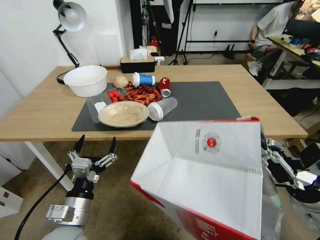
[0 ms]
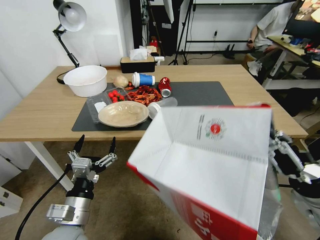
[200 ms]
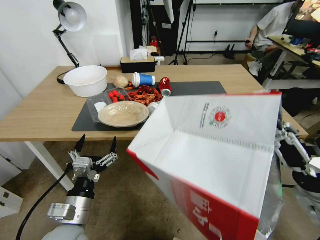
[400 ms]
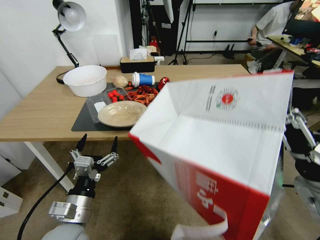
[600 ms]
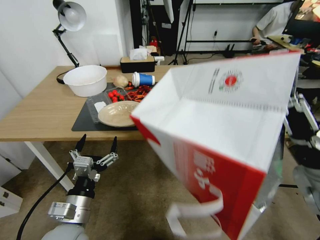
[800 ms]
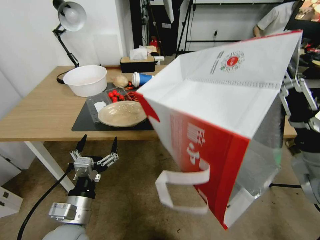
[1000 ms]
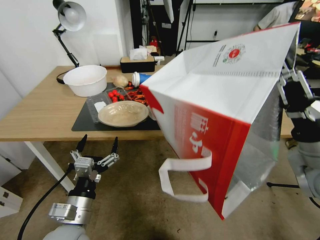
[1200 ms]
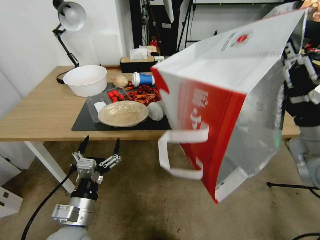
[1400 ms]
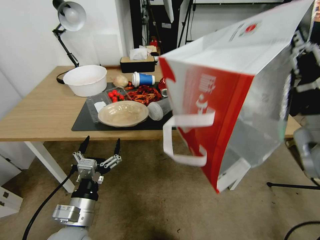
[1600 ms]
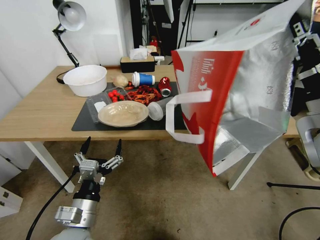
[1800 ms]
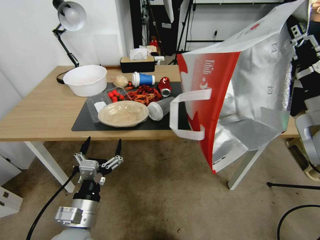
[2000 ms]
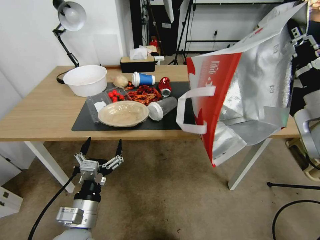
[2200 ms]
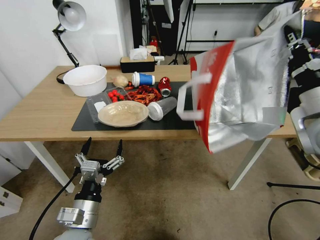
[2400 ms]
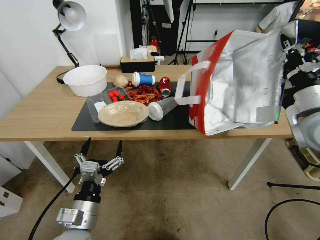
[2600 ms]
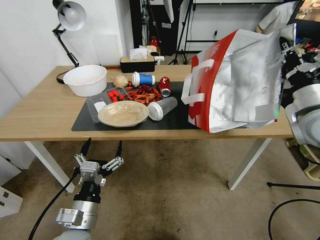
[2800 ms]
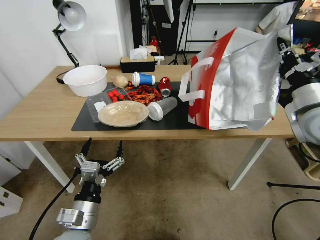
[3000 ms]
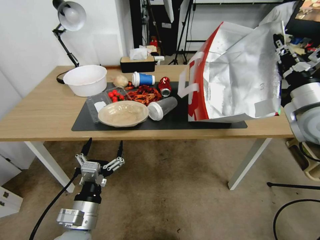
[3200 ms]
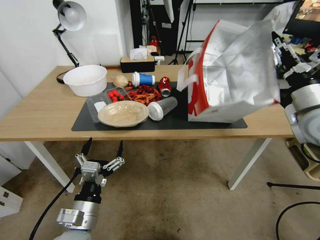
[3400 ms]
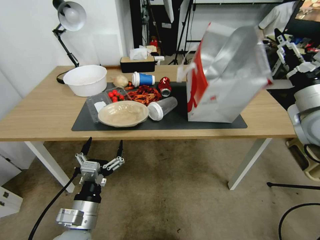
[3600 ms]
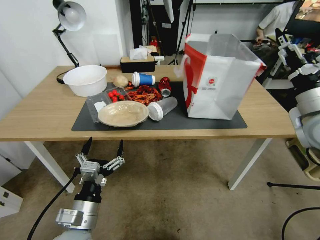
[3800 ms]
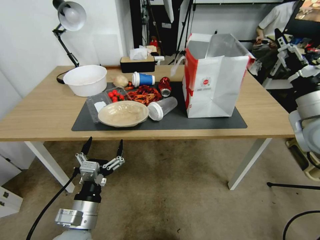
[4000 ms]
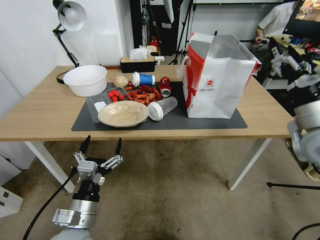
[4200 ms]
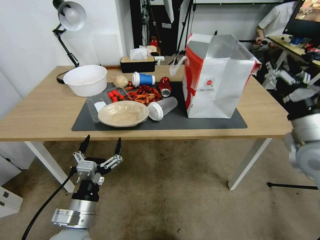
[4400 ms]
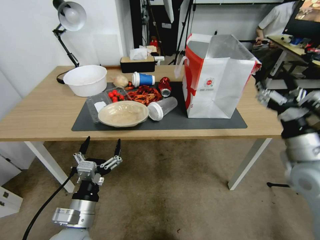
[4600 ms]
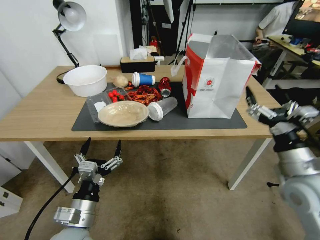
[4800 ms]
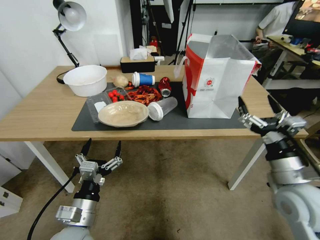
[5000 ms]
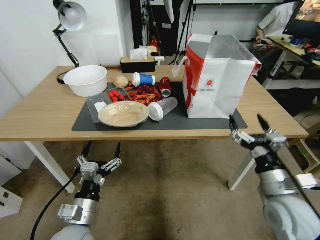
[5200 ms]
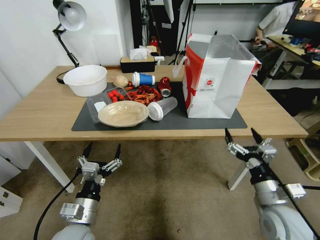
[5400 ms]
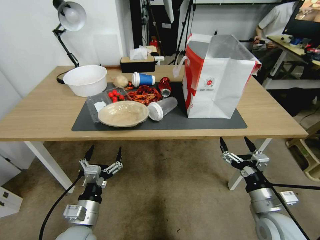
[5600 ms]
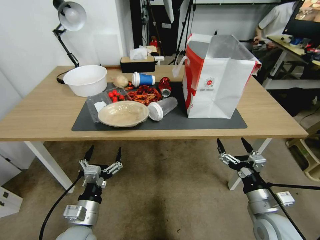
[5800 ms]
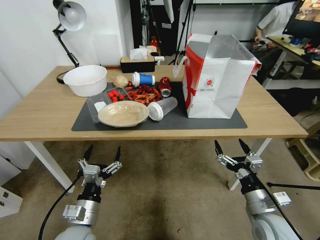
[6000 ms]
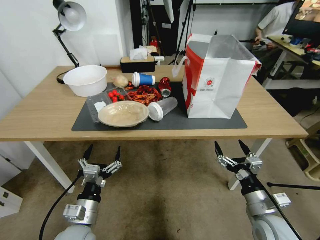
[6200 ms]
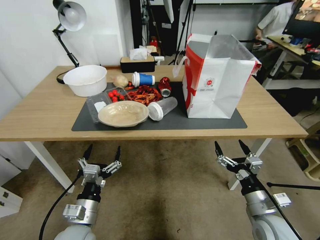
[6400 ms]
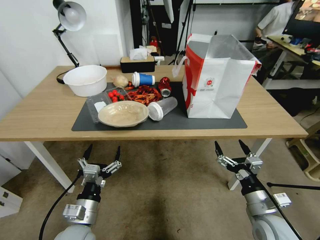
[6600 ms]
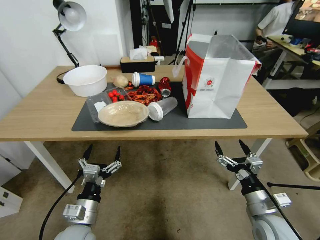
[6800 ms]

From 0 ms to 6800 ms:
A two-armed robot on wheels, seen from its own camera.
Task of the whole recording: Pick up the food delivery bag from the floor and place it on the table.
From 0 ms to 1400 ms: The right gripper is displaced upward and to the left by roughly 15 cm.
From 1400 ms to 2800 ms: The right gripper goes approximately 10 cm forward.
From 2800 ms to 4000 ms: The right gripper opens up.
From 4000 ms to 5400 ms: The right gripper moves downward and backward, roughly 25 cm.
From 5400 ms to 6800 ms: There are only small adjustments of the grippers.

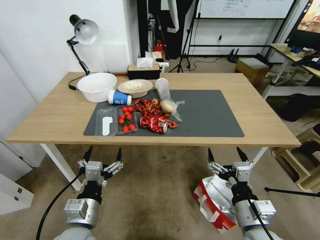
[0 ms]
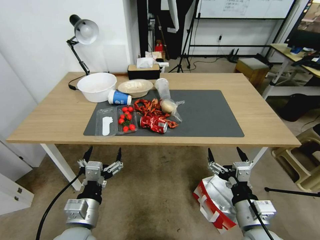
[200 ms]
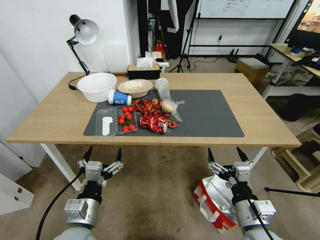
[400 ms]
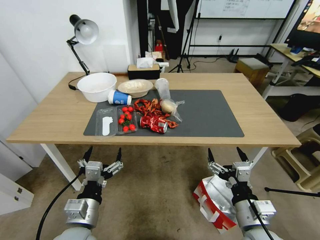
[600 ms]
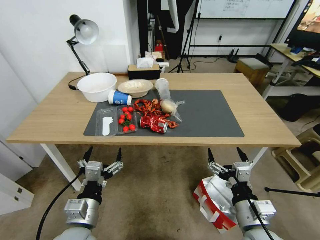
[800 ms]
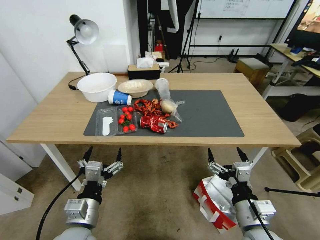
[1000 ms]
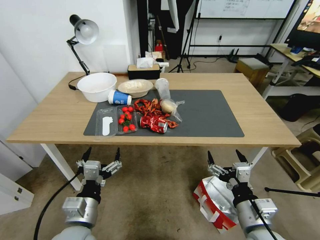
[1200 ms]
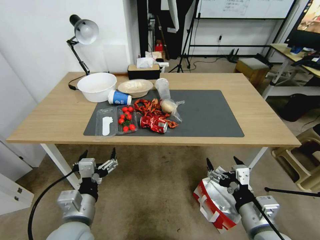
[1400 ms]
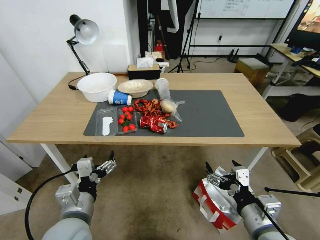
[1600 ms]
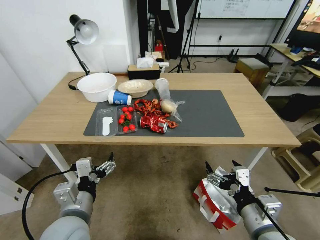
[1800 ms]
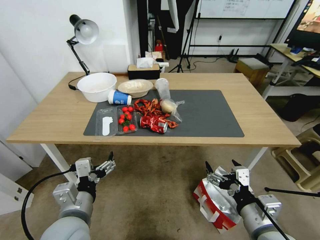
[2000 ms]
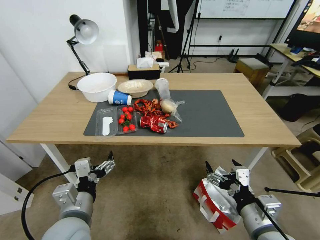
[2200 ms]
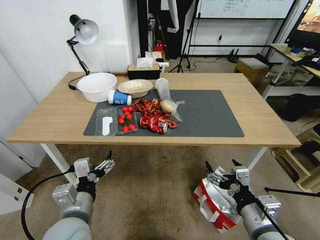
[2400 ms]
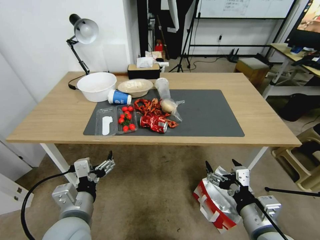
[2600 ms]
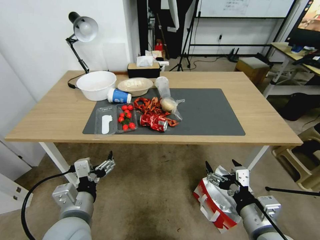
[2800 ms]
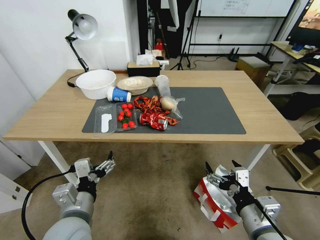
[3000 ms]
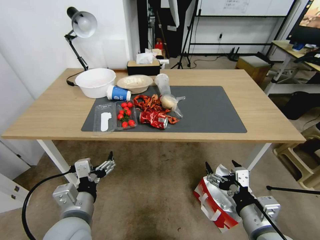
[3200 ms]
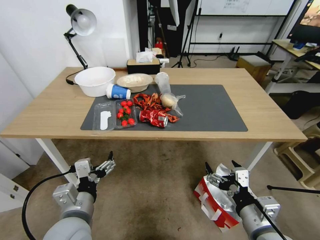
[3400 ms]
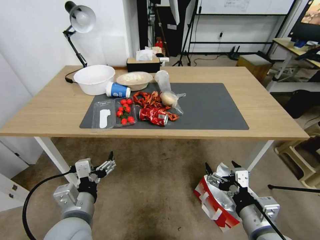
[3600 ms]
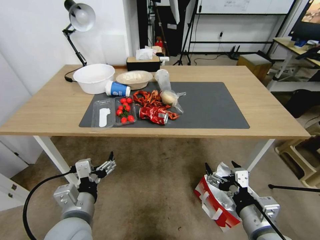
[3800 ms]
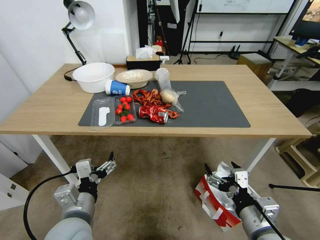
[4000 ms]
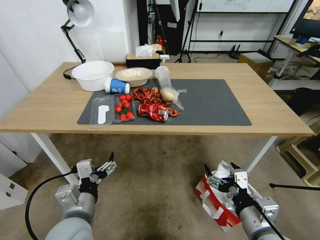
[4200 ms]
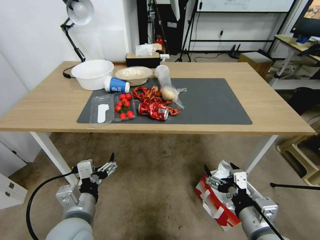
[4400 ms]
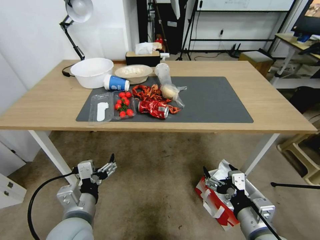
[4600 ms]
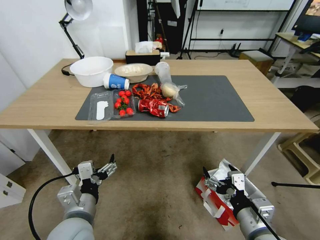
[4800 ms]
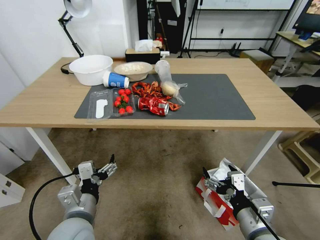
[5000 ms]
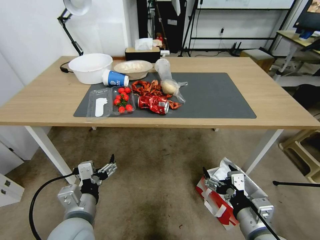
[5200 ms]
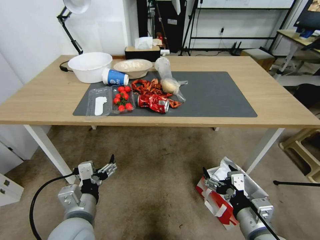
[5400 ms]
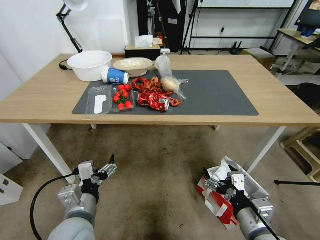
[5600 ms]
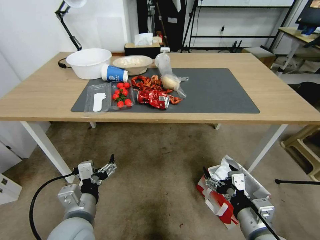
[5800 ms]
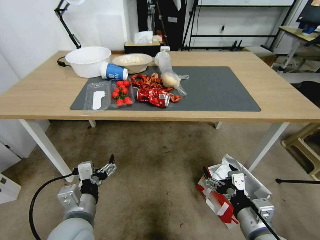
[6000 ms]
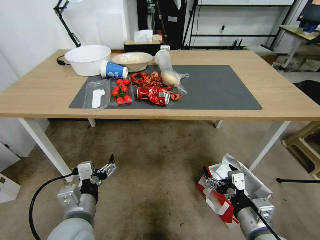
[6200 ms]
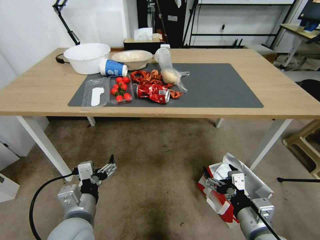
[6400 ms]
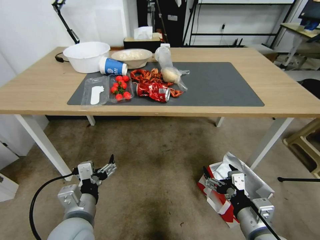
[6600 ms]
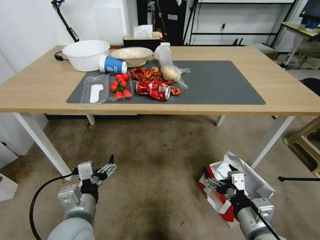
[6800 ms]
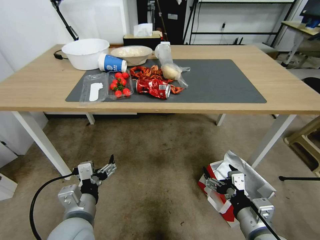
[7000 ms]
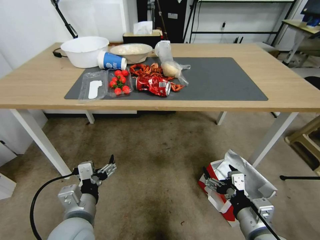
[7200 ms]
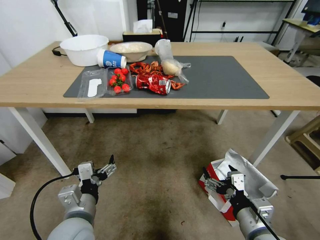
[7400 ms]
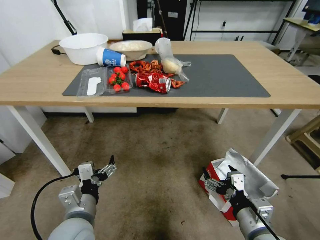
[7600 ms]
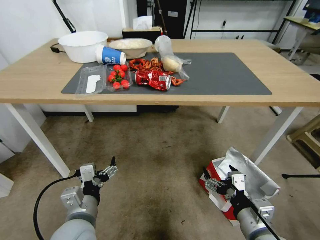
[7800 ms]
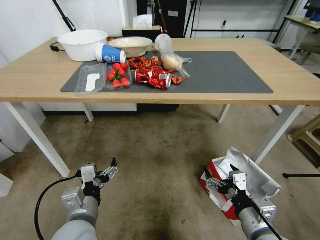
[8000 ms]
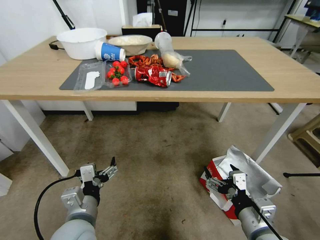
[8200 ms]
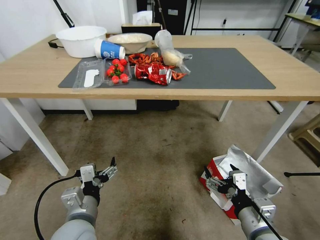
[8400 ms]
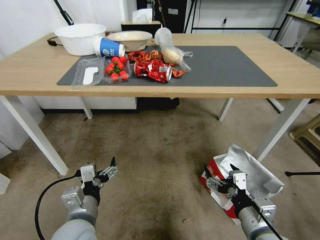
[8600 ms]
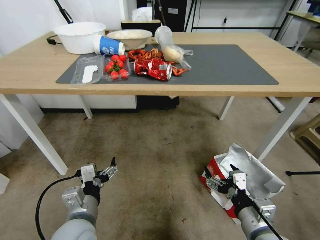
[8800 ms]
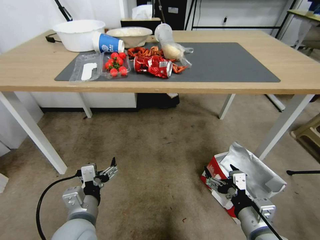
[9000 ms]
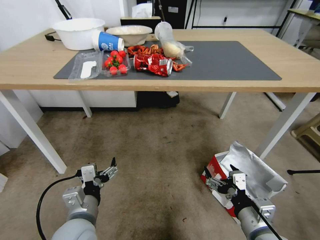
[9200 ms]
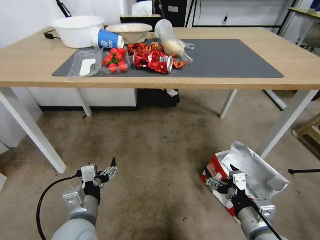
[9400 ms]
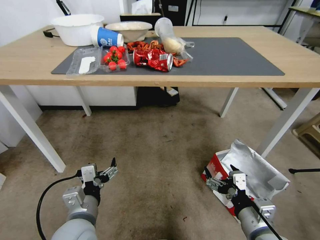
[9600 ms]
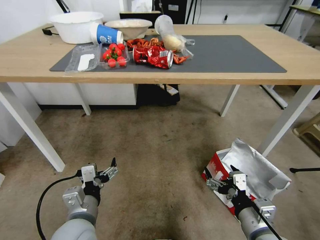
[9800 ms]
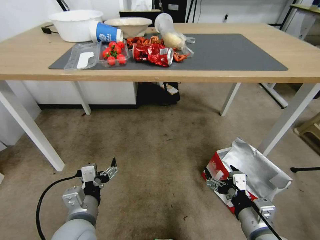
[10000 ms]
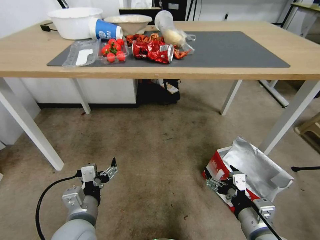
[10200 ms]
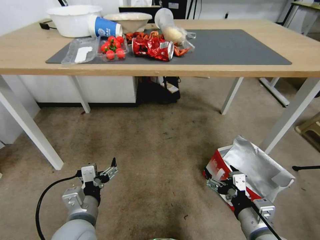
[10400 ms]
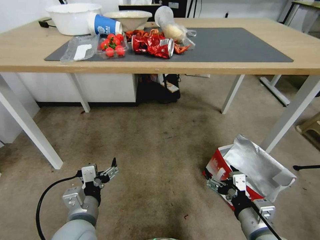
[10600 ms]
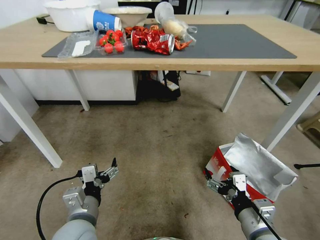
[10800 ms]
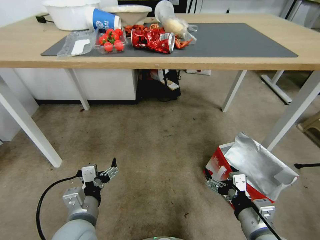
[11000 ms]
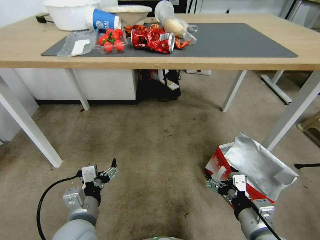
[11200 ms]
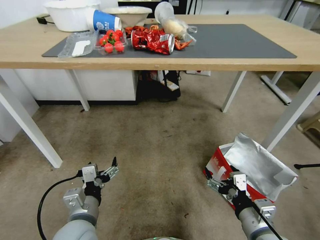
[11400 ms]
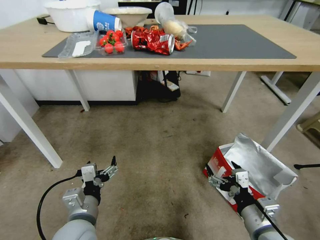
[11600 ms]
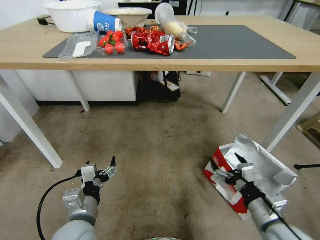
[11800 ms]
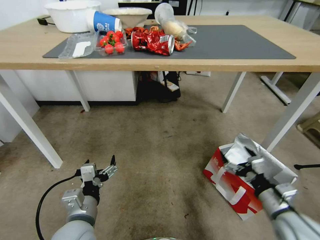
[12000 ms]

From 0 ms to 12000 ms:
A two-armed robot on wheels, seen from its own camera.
Task of the whole recording: Pick up the food delivery bag from the floor and place it on the table.
From 1600 ms to 3000 ms: The grippers stay close to where they were, moving slightly.

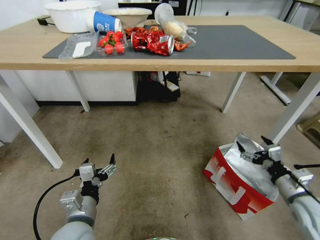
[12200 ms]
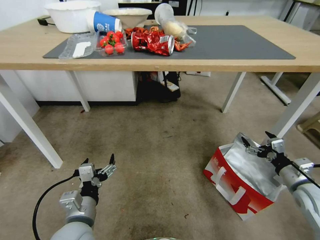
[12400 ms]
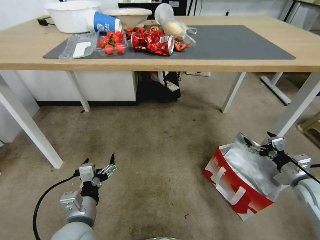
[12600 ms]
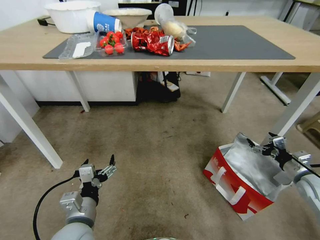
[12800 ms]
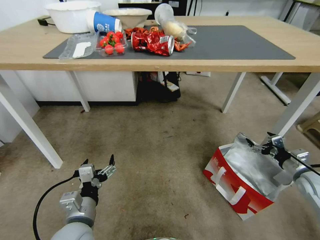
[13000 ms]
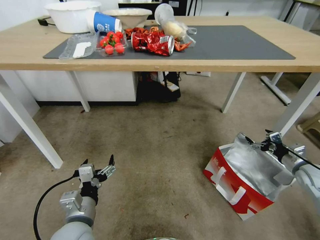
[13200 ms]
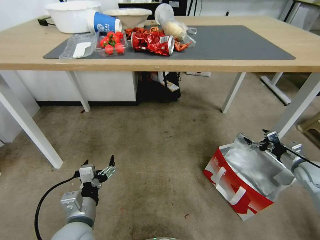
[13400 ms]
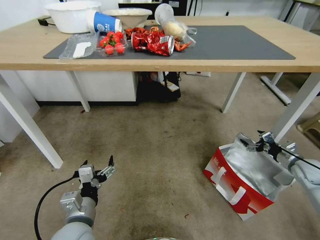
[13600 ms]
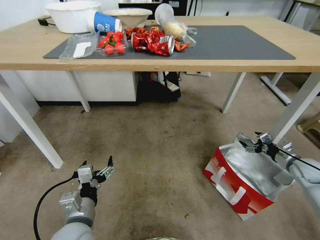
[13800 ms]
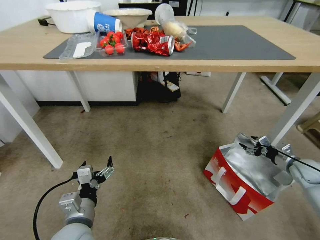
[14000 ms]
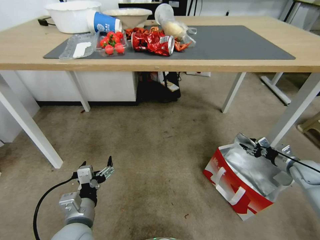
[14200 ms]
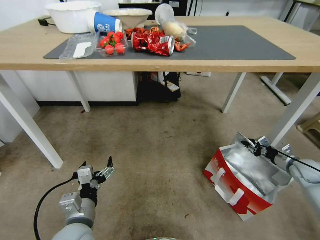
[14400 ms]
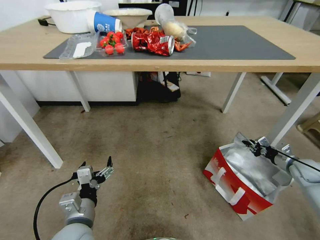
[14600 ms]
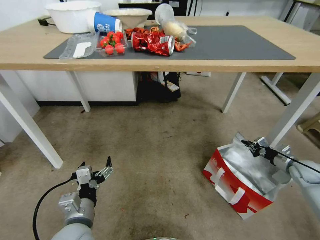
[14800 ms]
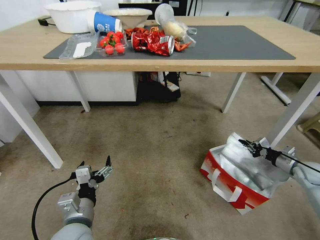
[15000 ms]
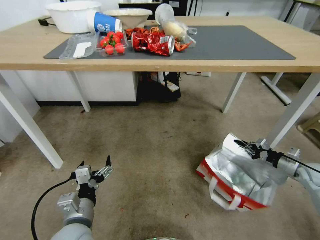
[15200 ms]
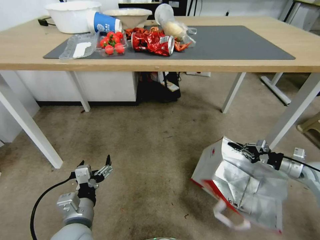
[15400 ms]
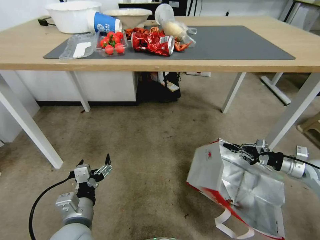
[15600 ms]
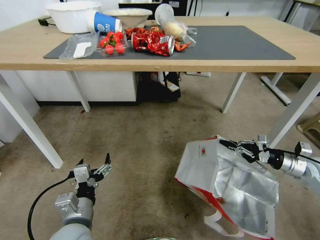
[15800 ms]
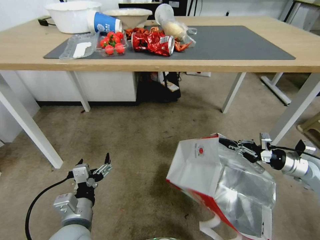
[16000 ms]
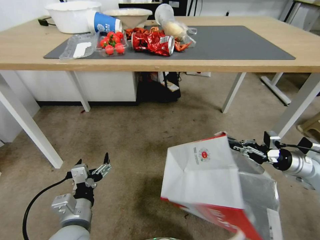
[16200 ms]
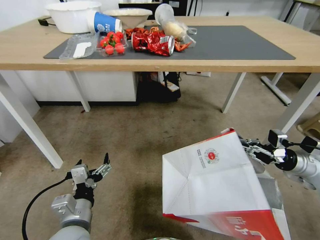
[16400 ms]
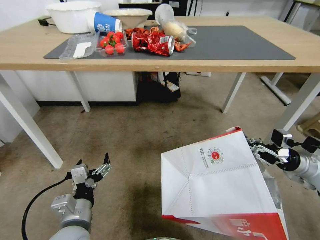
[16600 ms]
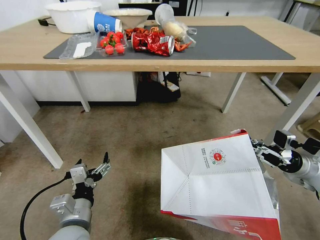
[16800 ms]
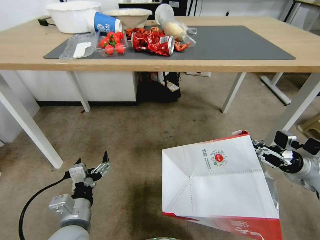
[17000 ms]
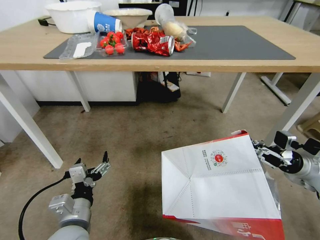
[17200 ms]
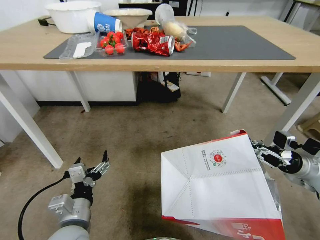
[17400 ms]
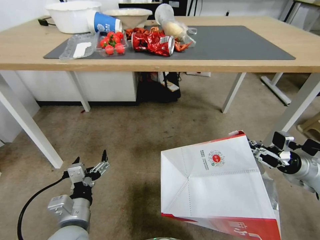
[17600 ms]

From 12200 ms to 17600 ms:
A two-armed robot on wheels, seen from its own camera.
Task of the whole recording: Pick up the food delivery bag from the floor and place it on the table.
From 12200 ms to 13600 ms: The right gripper goes approximately 30 cm to the right and forward.
From 13600 ms to 15000 ms: The right gripper closes.
From 15000 ms to 16200 ms: The right gripper travels upward and to the left by roughly 10 cm.
From 16200 ms to 17600 ms: The grippers move only a little.
